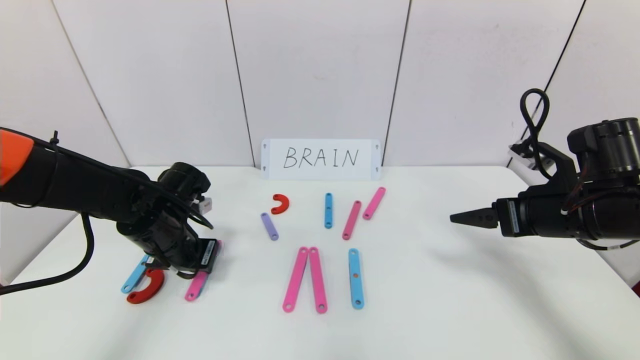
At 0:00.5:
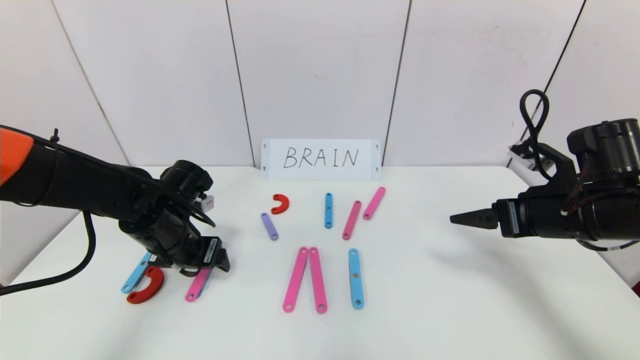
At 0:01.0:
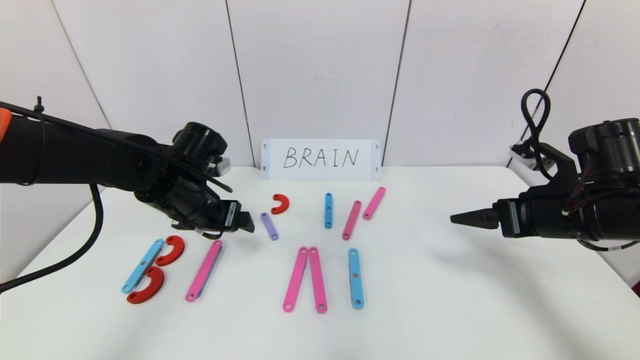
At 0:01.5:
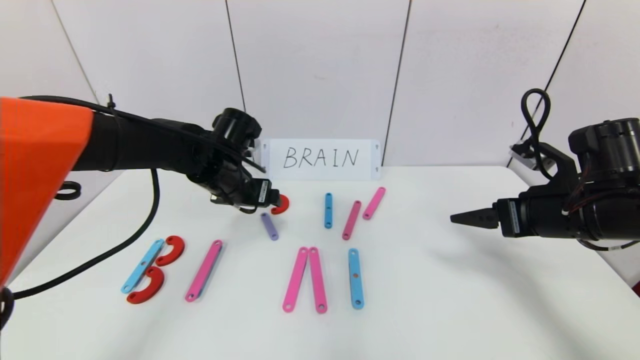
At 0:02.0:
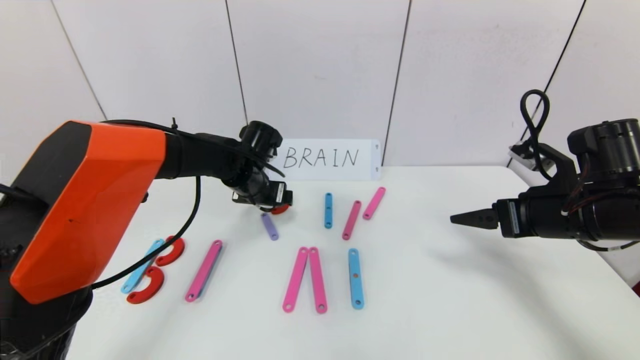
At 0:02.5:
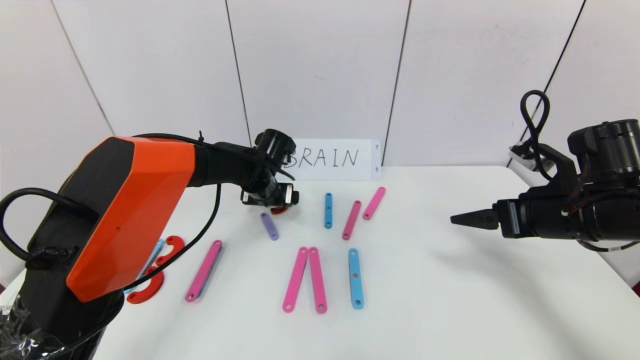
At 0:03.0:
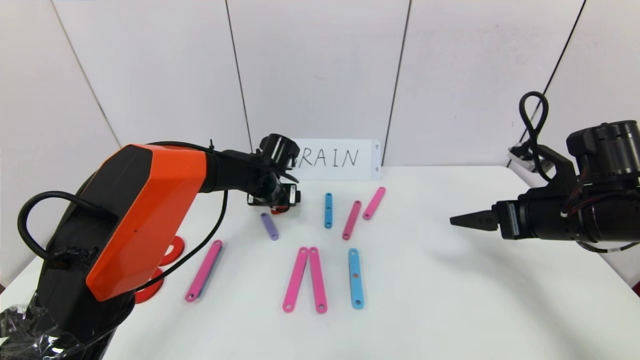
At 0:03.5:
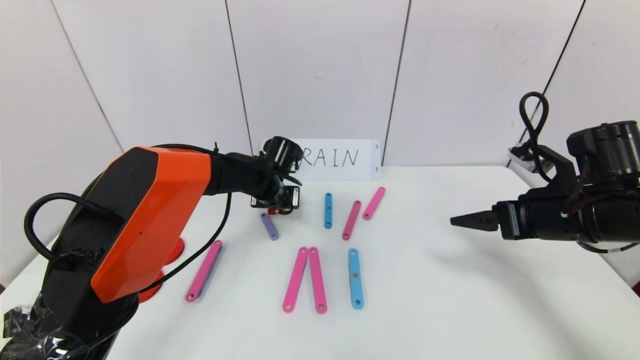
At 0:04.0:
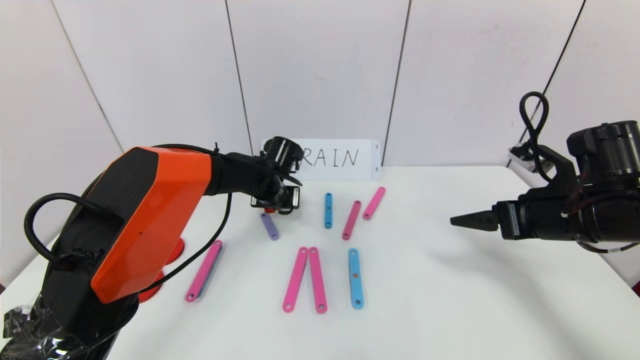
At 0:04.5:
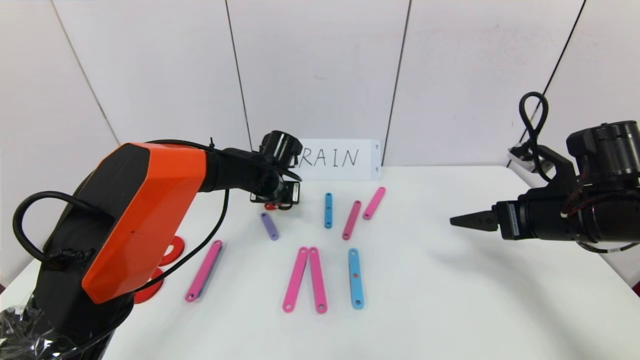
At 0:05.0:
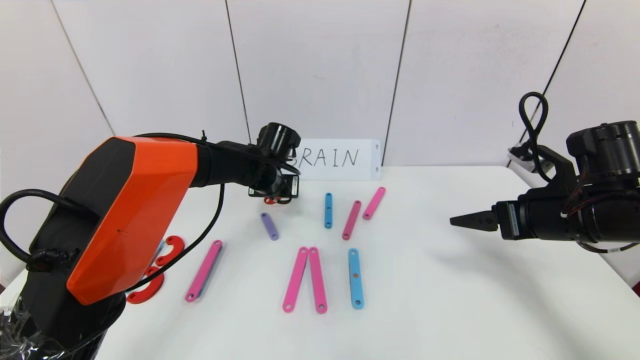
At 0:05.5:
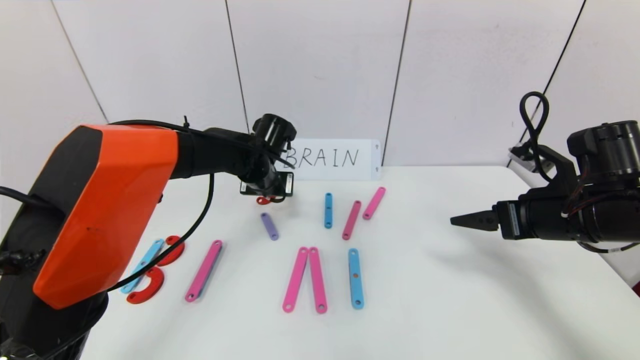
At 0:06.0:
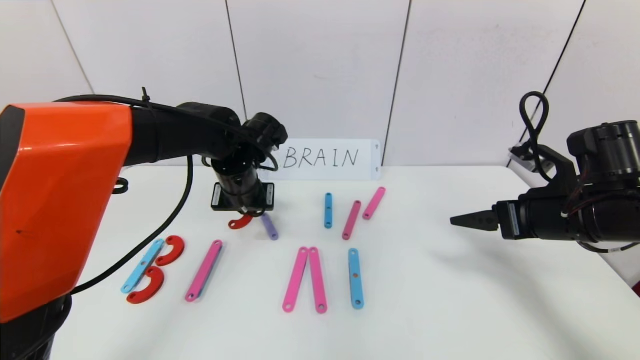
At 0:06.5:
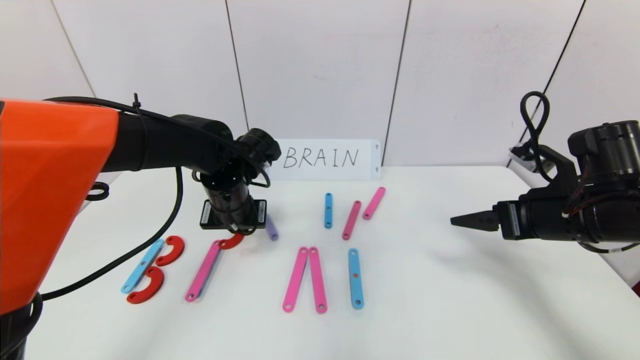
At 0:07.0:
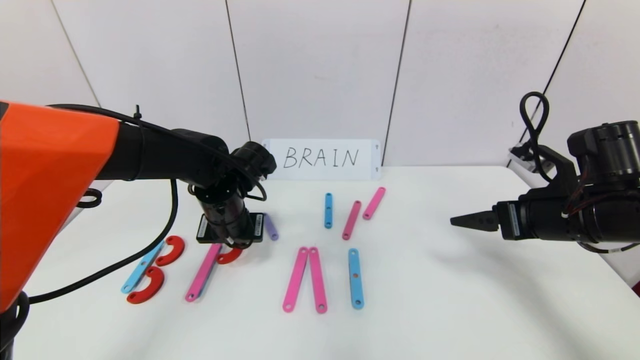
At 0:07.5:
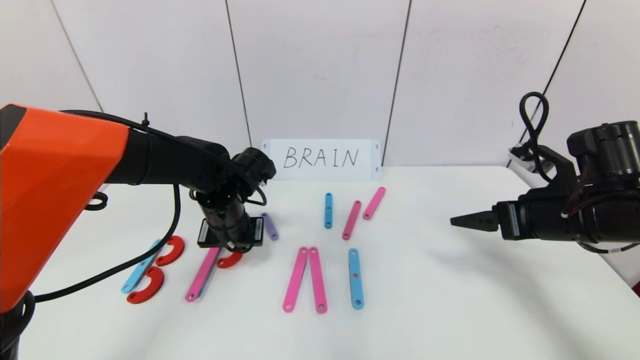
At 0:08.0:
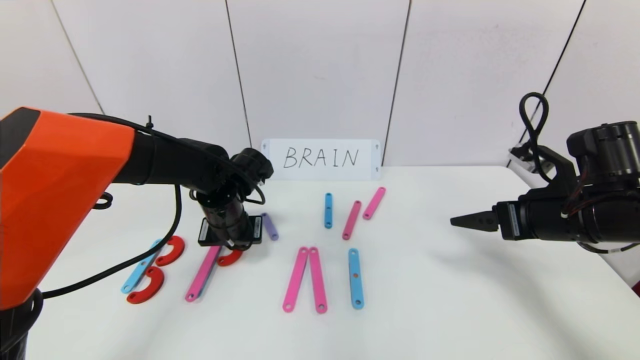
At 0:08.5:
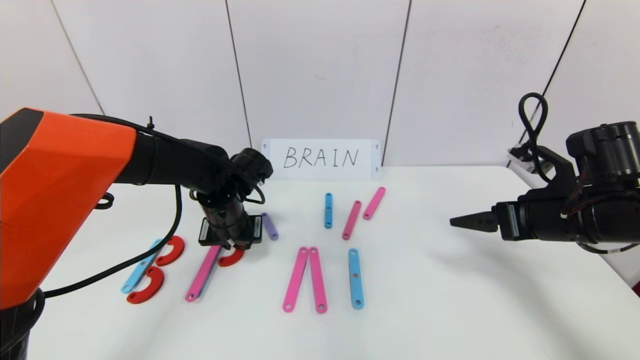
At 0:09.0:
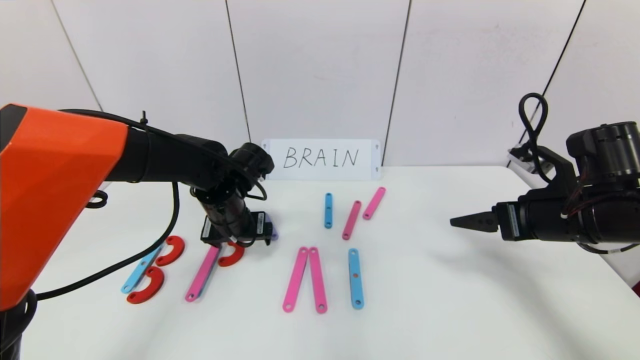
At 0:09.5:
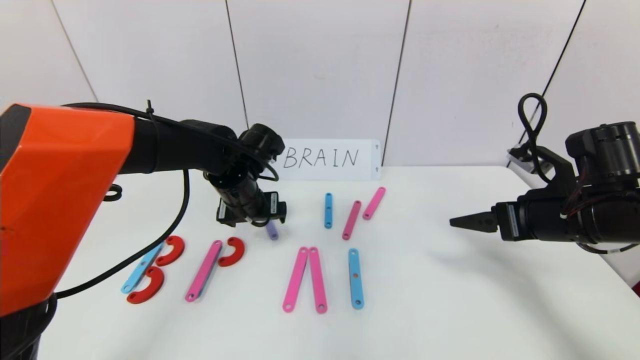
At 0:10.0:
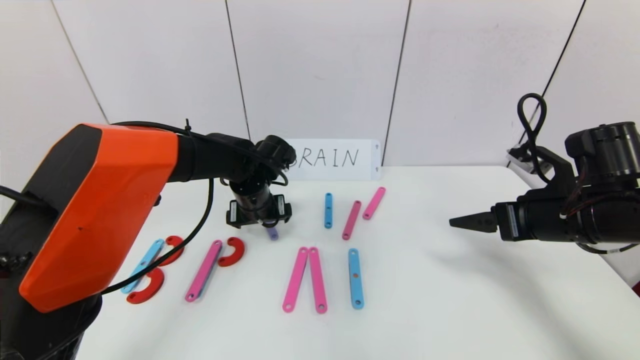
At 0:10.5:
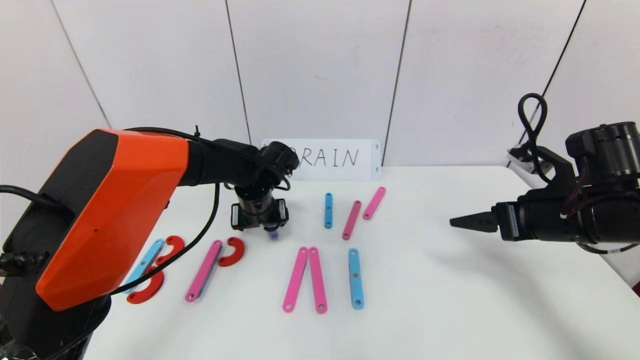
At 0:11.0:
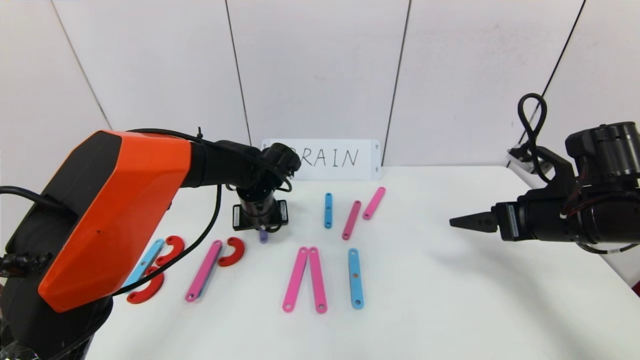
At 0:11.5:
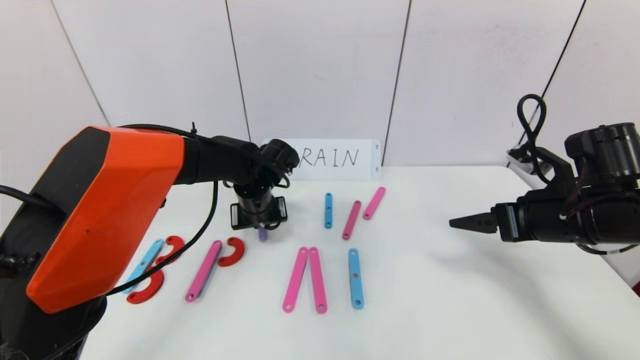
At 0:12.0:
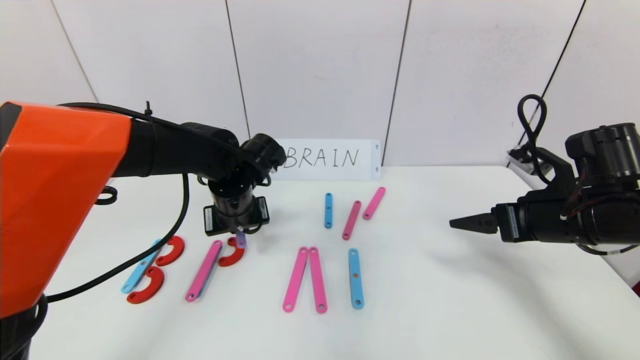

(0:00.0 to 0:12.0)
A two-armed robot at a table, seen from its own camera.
Task of the whole recording: rearrange the word baai as brain.
0:00.0 - 0:02.0: The left gripper travels forward and to the right by about 15 cm, and opens its fingers.
0:02.0 - 0:04.0: The left gripper shifts by approximately 5 cm, and closes.
0:04.0 - 0:06.0: The left gripper is displaced upward and backward by about 10 cm.
0:06.0 - 0:08.0: The left gripper travels downward by approximately 5 cm.
0:08.0 - 0:10.0: The left gripper ends up roughly 5 cm from where it was, and opens up.
0:10.0 - 0:12.0: The left gripper shifts by some 5 cm, and closes its fingers.

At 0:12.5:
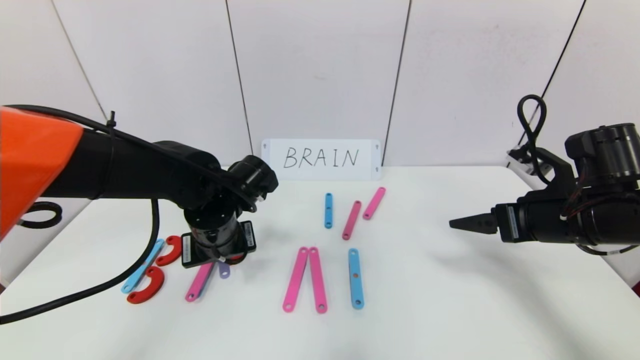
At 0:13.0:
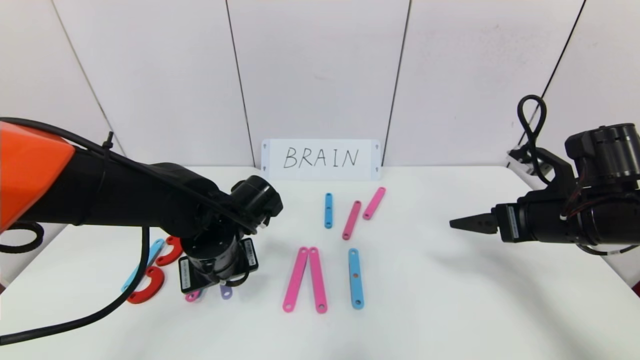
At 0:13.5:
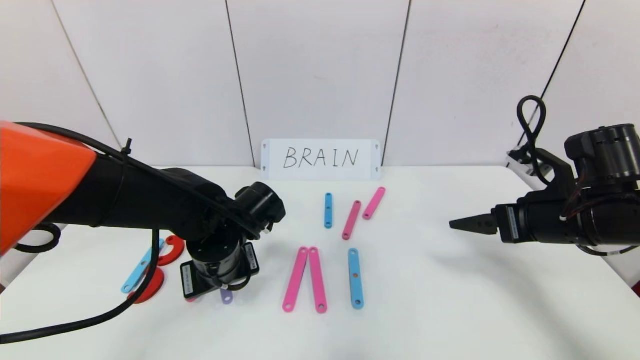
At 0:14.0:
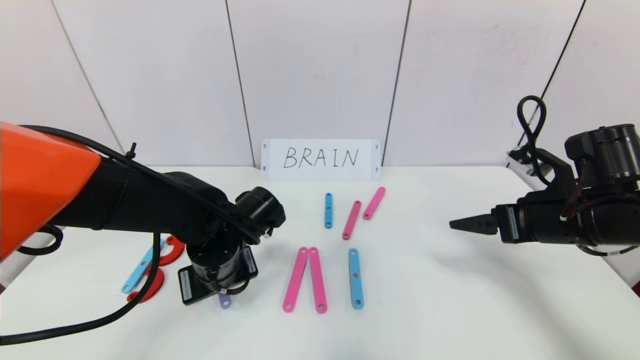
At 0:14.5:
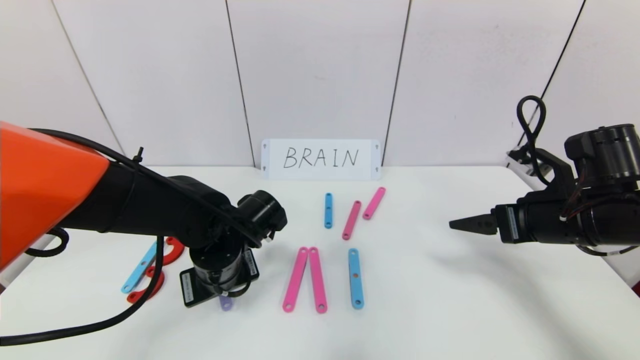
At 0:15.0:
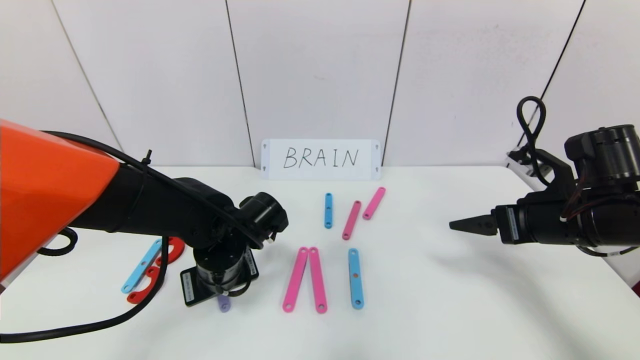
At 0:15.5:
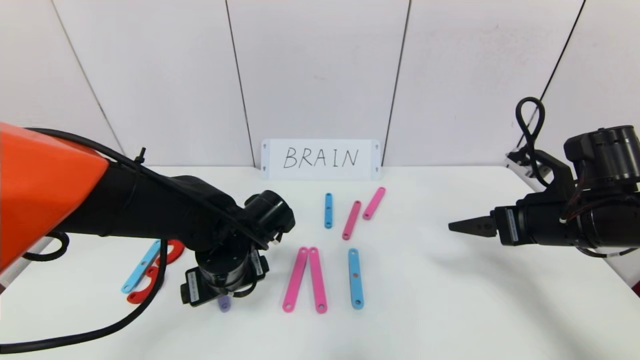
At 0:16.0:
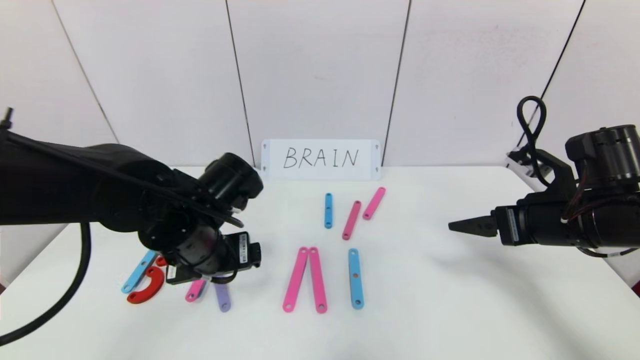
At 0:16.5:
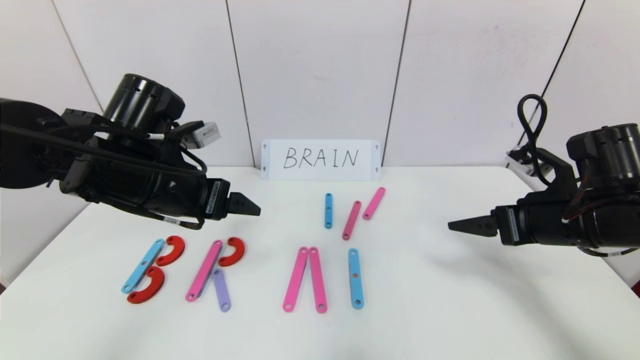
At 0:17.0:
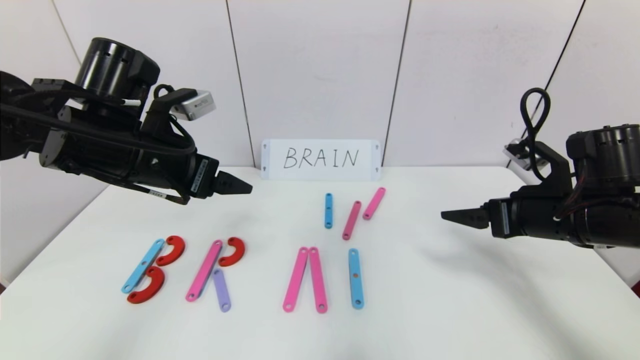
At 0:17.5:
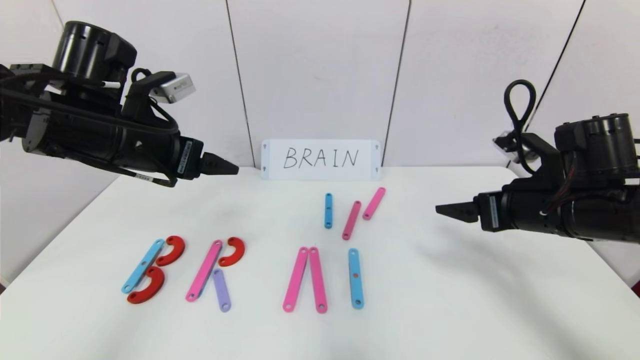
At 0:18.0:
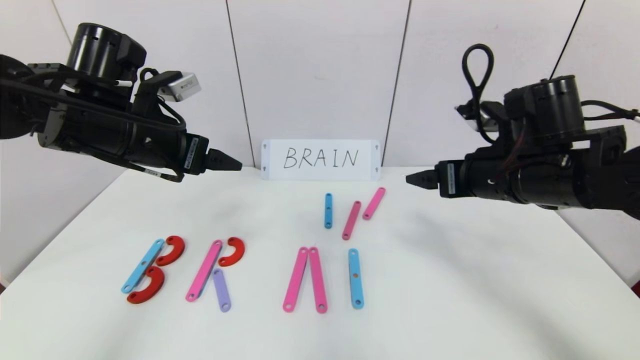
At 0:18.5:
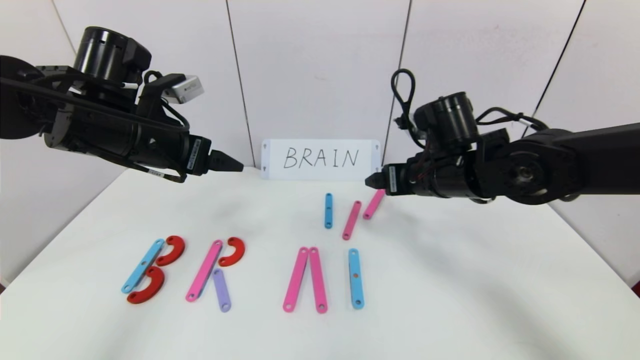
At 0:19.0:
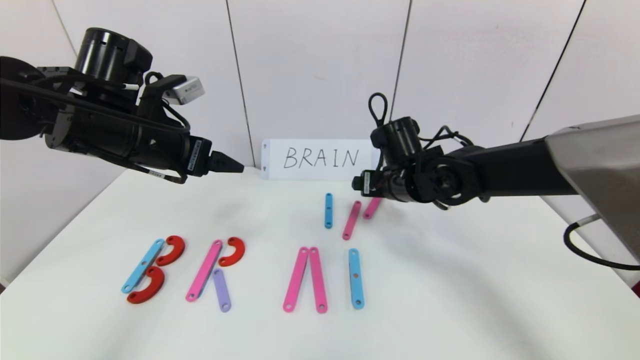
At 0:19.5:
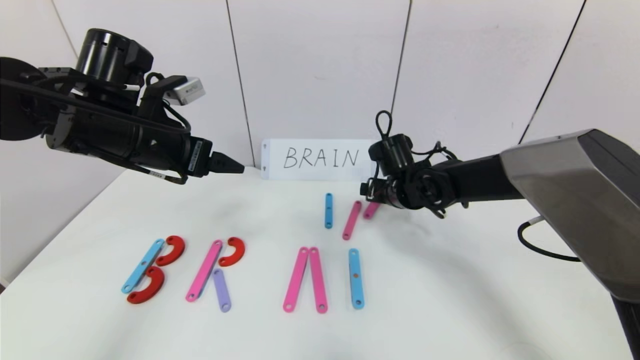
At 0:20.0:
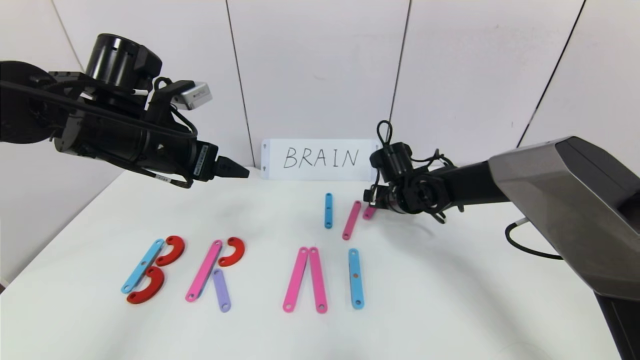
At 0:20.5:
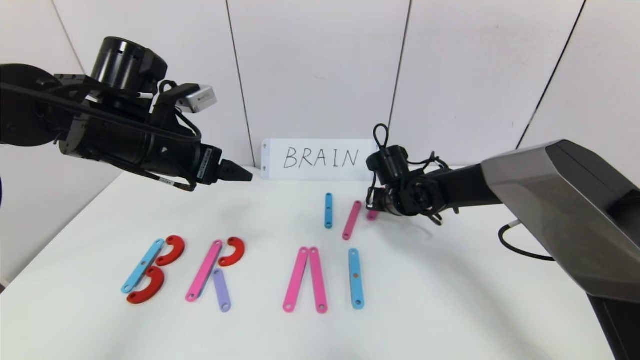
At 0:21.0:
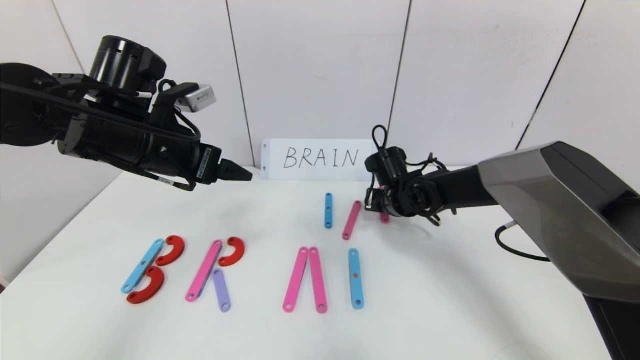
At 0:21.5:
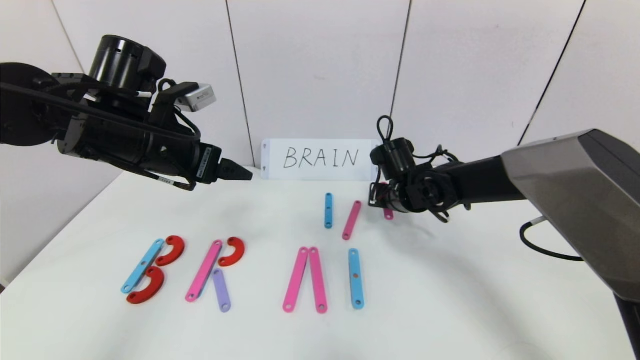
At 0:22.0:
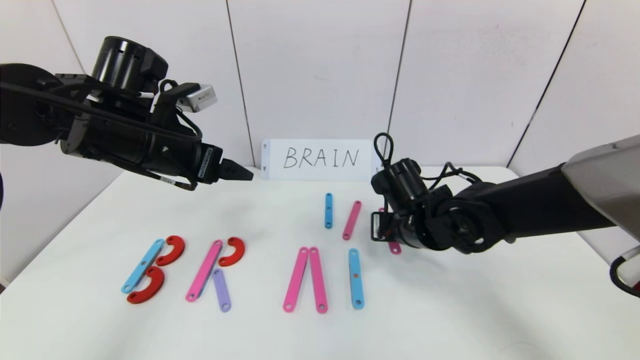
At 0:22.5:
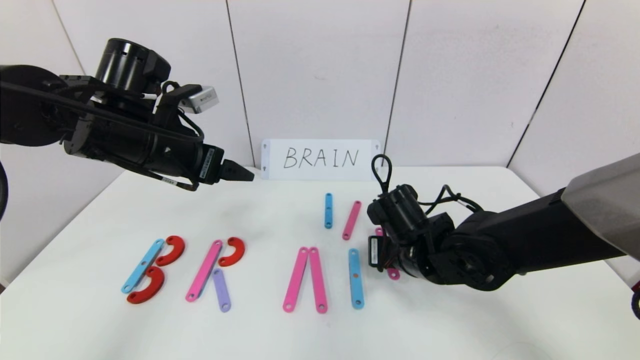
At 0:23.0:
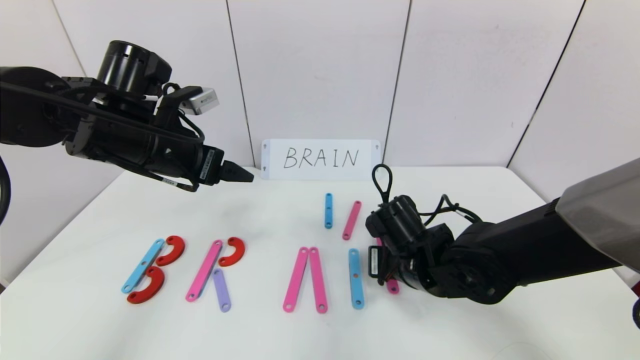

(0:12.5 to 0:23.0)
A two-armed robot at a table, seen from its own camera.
Task of the whole recording: rearrange the word baai as brain.
Step, 0:12.5 - 0:15.5: Place the character R between first character B and third character A.
0:12.5 - 0:14.5: The grippers move only a little.
0:14.5 - 0:16.5: The left gripper moves upward and to the left, some 15 cm, and opens.
0:16.5 - 0:19.0: The left gripper ends up approximately 5 cm from where it was, while the right gripper shifts roughly 20 cm to the left and forward.
0:19.0 - 0:21.0: The right gripper goes about 5 cm downward, and closes its fingers.
0:21.0 - 0:23.0: The right gripper travels backward by roughly 15 cm.
